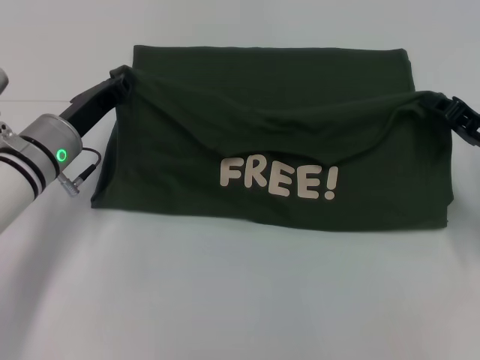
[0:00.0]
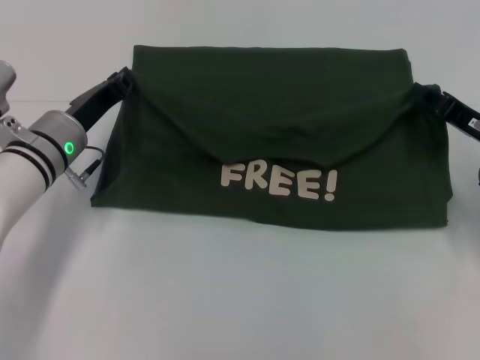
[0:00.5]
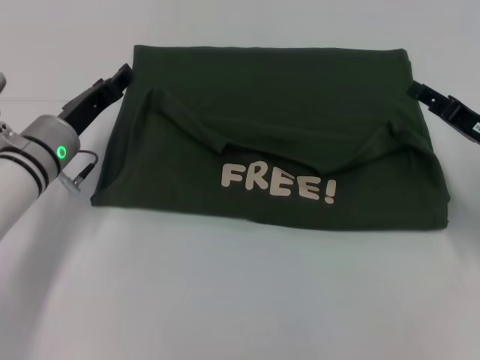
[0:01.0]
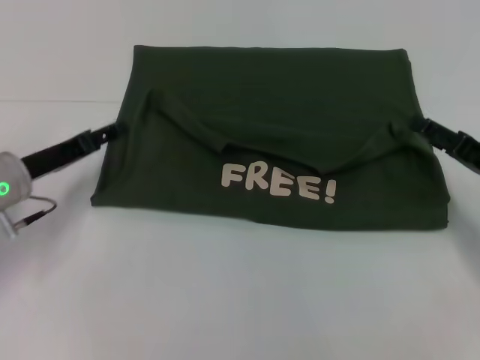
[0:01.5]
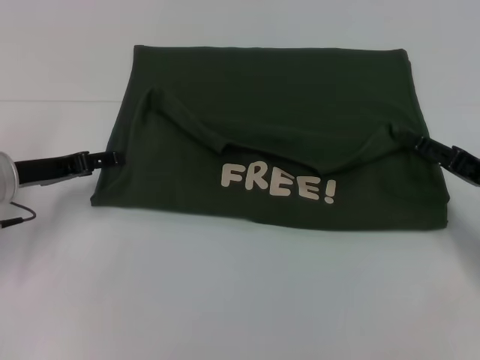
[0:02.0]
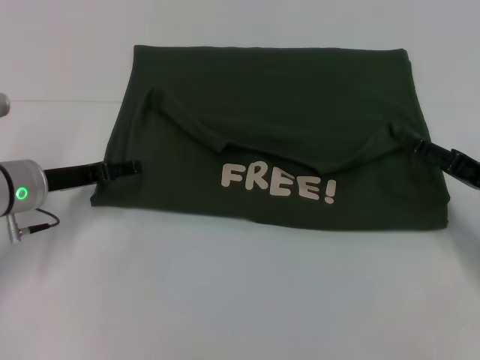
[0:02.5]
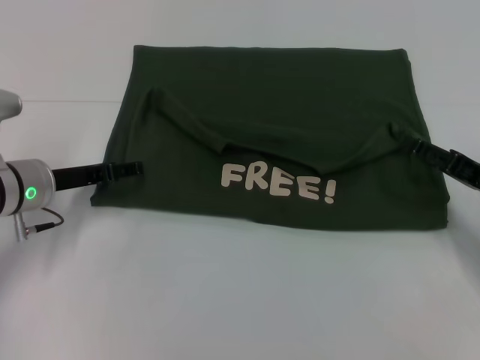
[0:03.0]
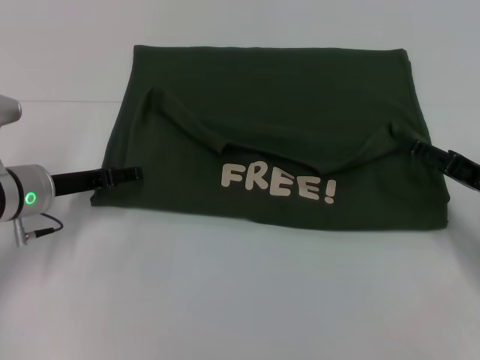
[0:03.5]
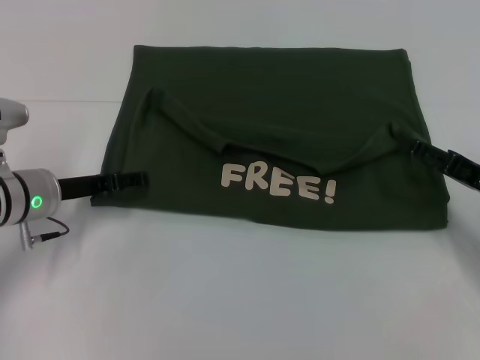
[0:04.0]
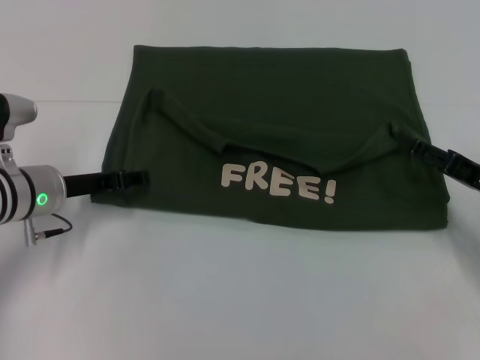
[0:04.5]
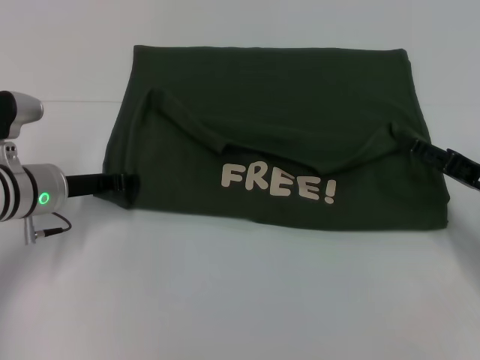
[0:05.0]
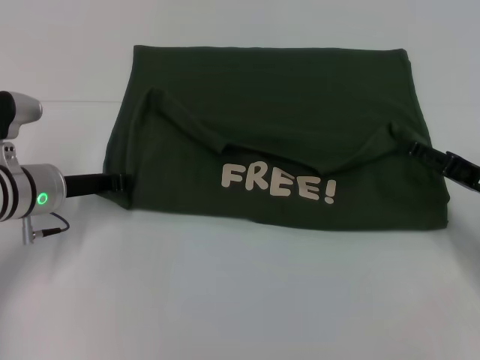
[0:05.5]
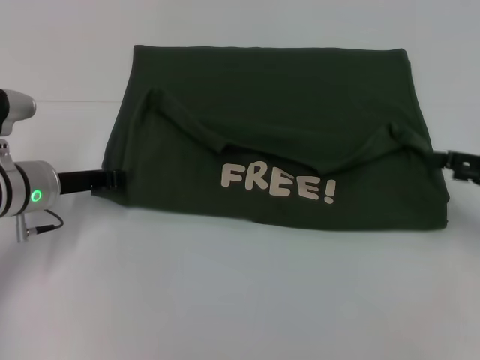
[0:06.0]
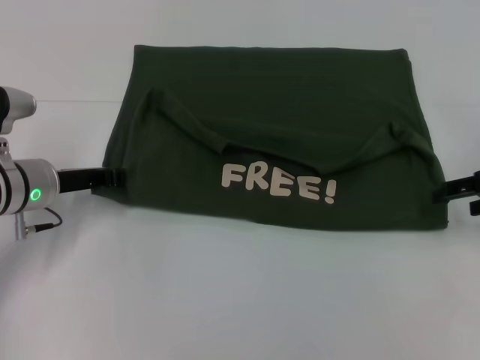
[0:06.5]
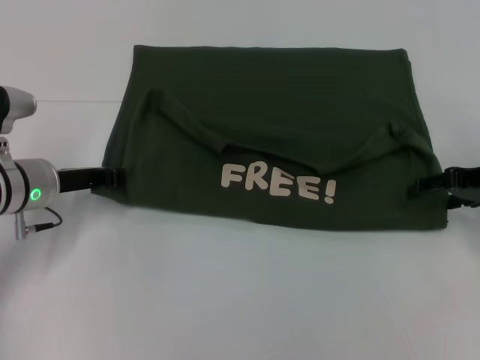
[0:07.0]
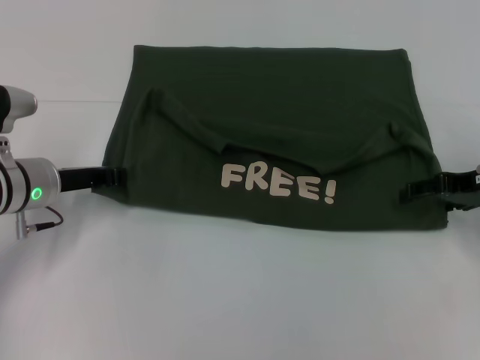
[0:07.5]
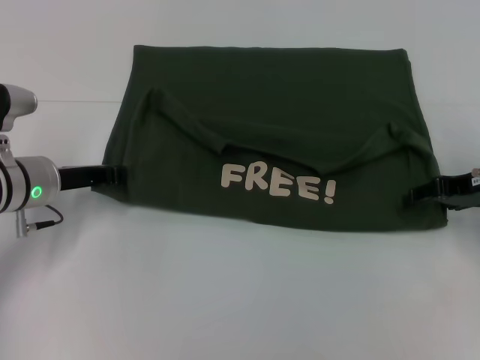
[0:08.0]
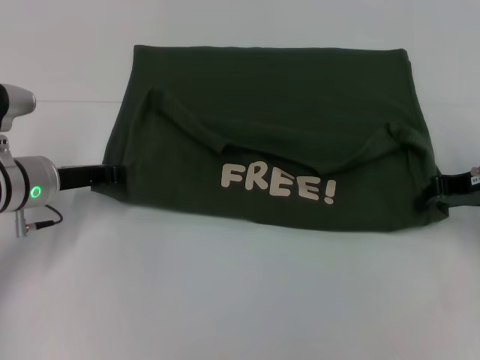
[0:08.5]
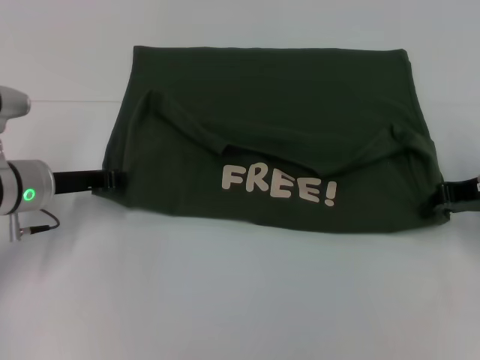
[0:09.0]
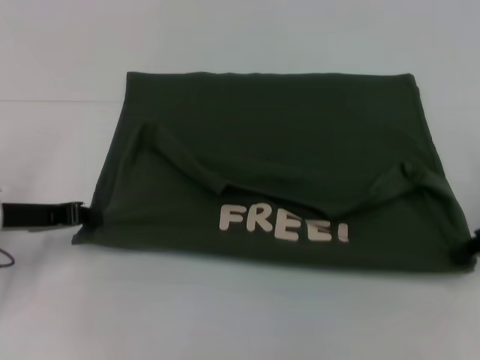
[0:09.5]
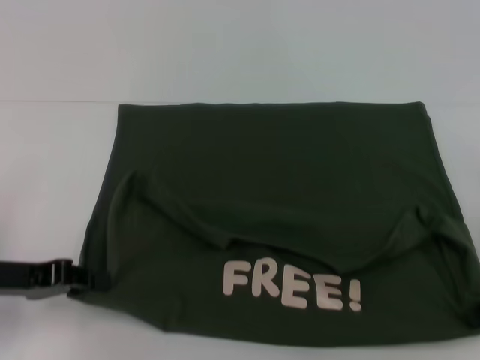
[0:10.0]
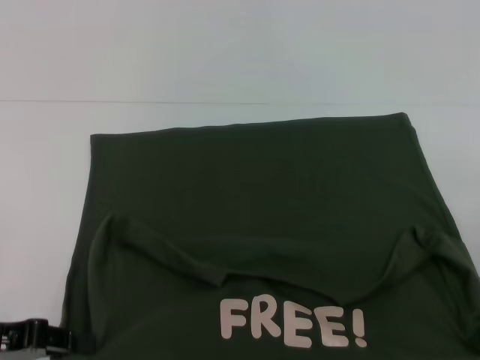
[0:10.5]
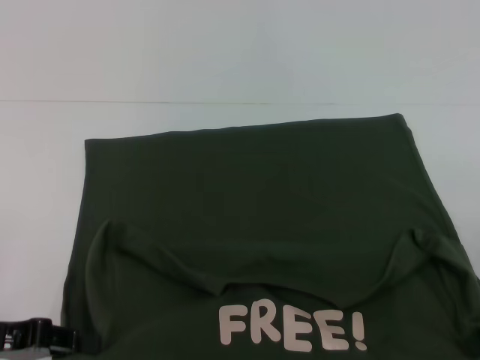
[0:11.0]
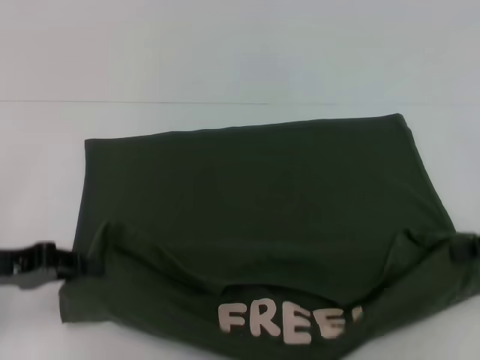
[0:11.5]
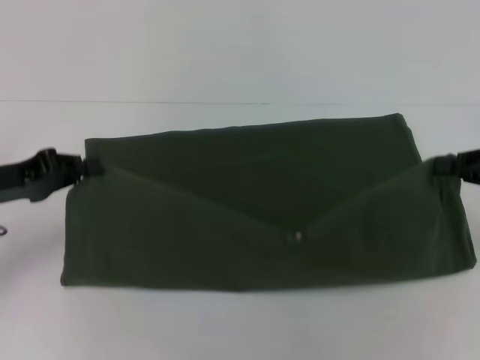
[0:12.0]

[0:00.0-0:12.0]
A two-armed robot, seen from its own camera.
Step, 0:01.0 to 0:10.5: Pull the clothes with your left hand.
Step, 0:01.0 to 0:10.5: Pull the clothes with your right hand.
0:00.0 to 0:02.0: The right gripper opens its fingers. The left gripper goes some 5 cm to the left, and opens up.
0:02.0 to 0:04.0: There are only small adjustments of the grippers.
0:04.0 to 0:06.0: The left gripper closes. The right gripper shifts by about 5 cm.
0:06.0 to 0:08.0: The right gripper shifts approximately 10 cm to the left and forward.
0:08.0 to 0:10.0: The left gripper moves backward and to the left, roughly 10 cm; the right gripper heads backward, covering about 5 cm, and closes its fingers.

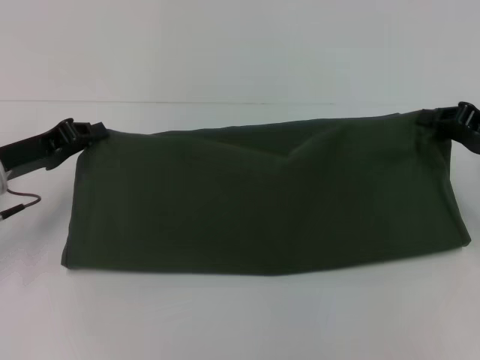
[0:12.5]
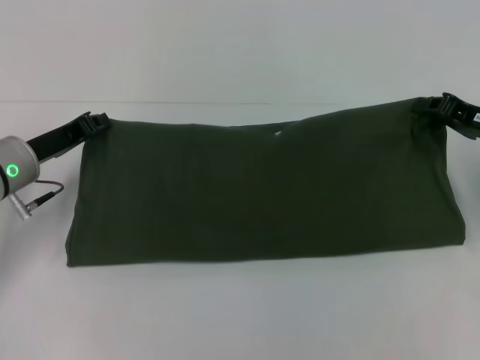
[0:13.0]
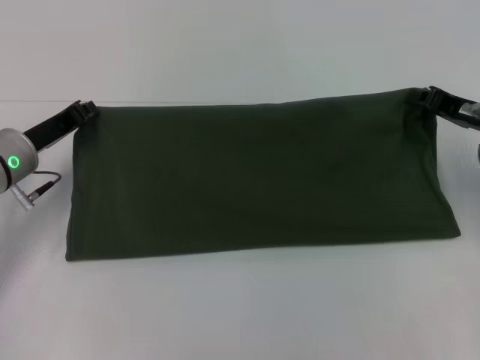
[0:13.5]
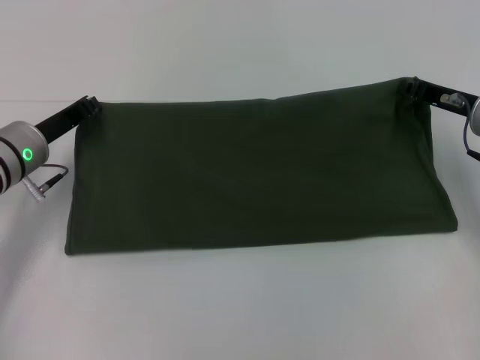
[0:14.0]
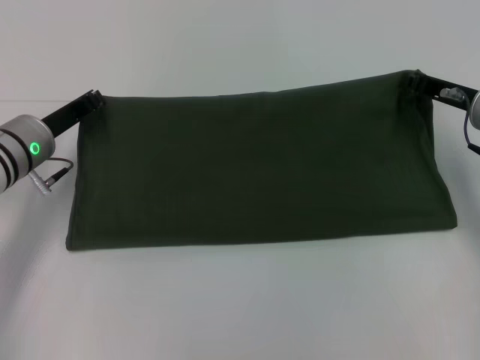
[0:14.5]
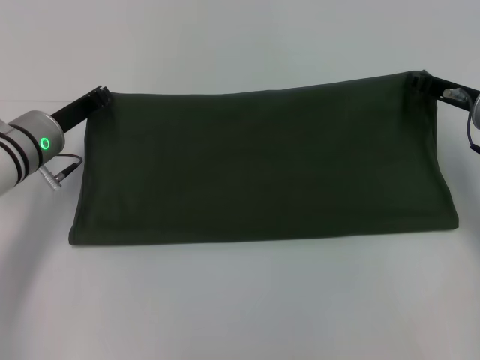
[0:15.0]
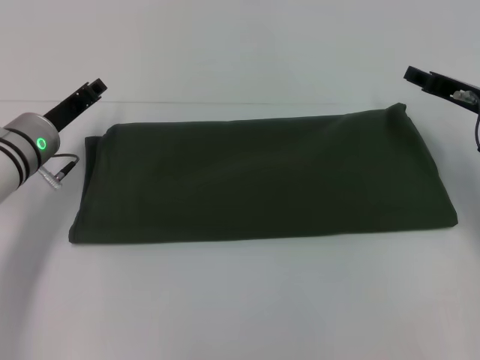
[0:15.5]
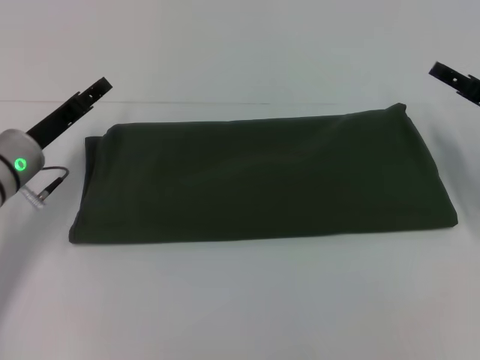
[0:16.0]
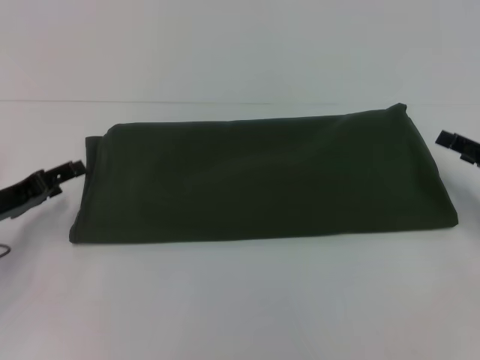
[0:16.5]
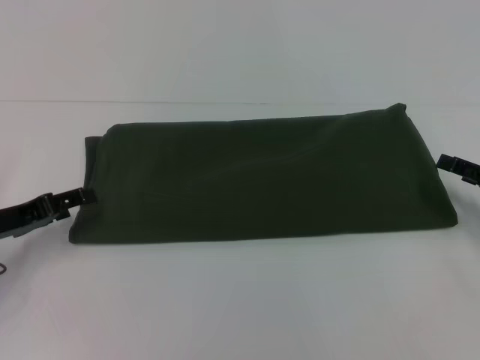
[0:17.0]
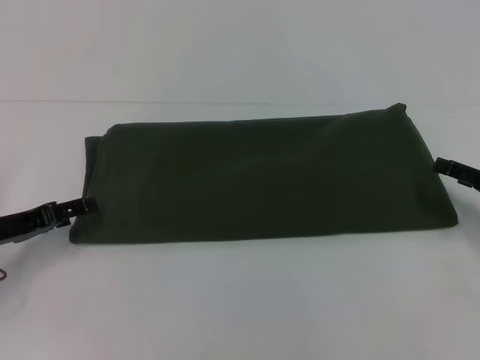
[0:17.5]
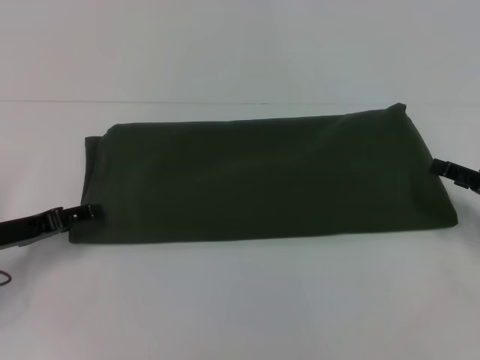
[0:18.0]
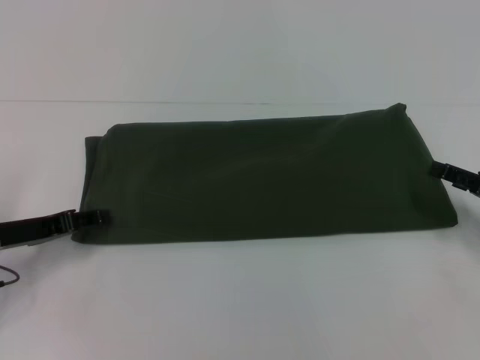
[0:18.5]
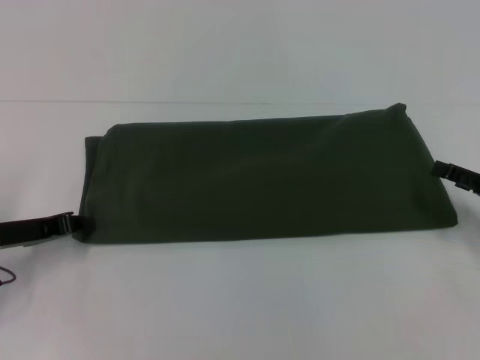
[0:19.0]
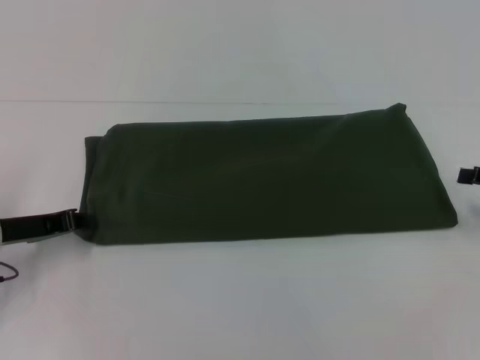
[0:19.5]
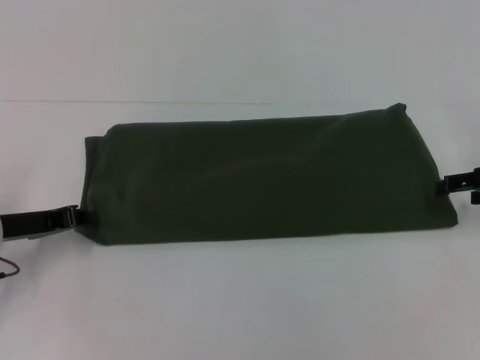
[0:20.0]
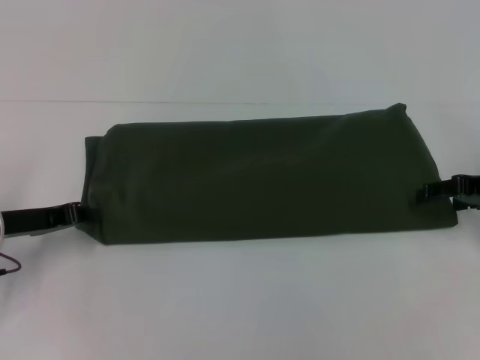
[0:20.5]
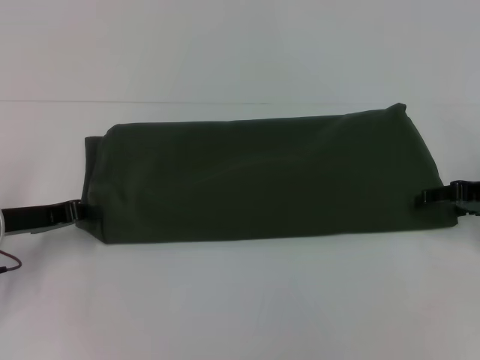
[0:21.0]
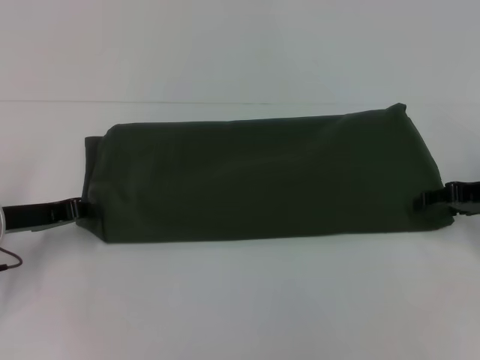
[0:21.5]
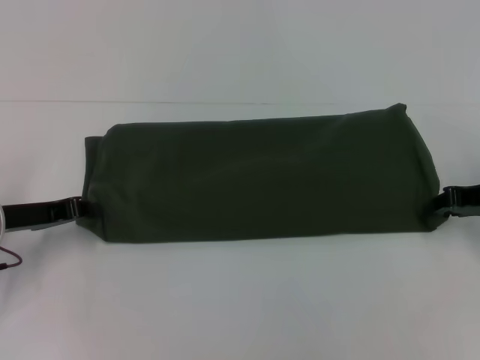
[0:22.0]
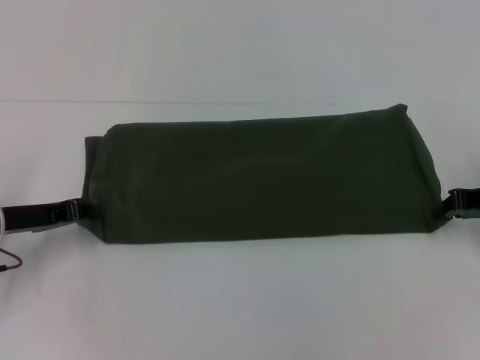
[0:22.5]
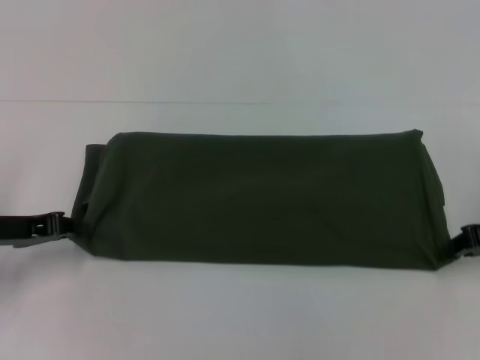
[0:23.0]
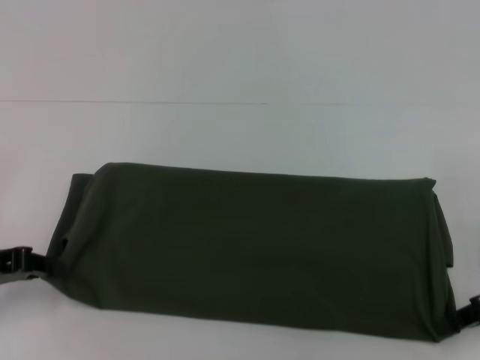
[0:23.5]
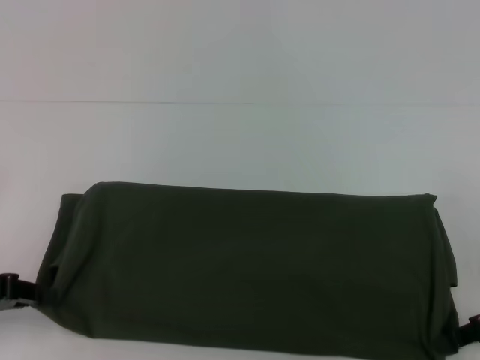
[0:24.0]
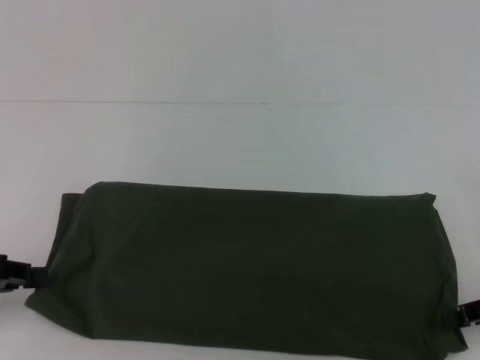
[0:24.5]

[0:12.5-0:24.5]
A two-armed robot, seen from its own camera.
Step, 0:12.5 to 0:15.0: Fold the clothes with your right hand.
0:12.5 to 0:14.5: The left gripper heads forward, covering some 5 cm. The right gripper heads forward and to the left, covering about 10 cm.
0:14.5 to 0:16.5: The left gripper heads backward and to the left, covering roughly 10 cm, and opens up. The right gripper heads backward and to the right, covering approximately 15 cm, and opens its fingers.
0:16.5 to 0:18.5: The grippers stay close to where they were, moving slightly.
0:18.5 to 0:20.5: The left gripper closes its fingers, while the right gripper shifts approximately 5 cm forward.
0:20.5 to 0:22.5: The right gripper closes its fingers.
0:22.5 to 0:24.5: The left gripper heads backward and to the left, covering roughly 10 cm. Meanwhile the right gripper is displaced backward by some 10 cm.

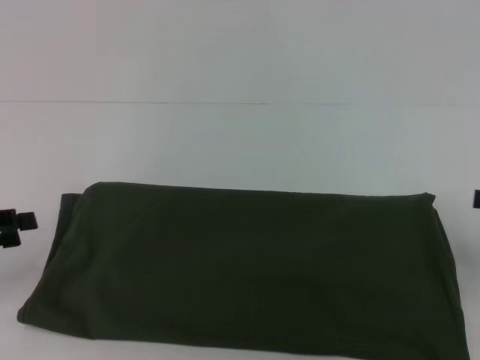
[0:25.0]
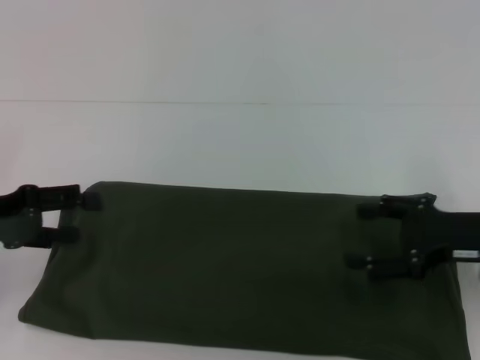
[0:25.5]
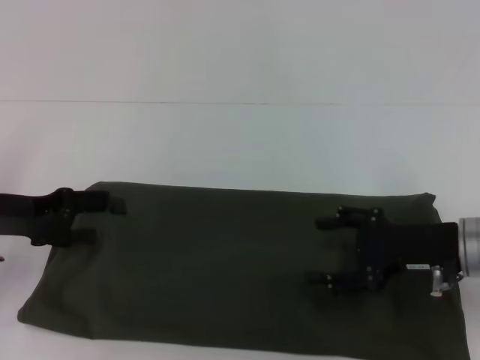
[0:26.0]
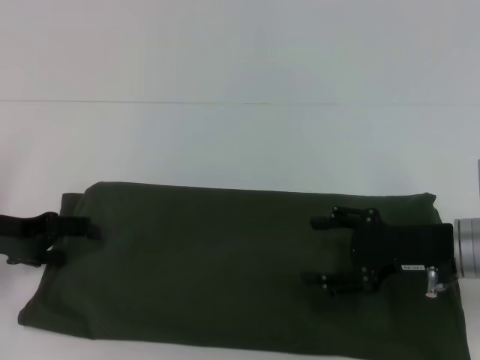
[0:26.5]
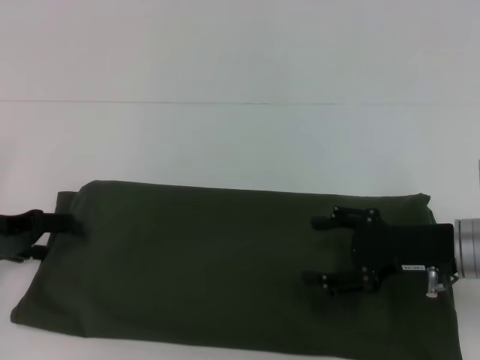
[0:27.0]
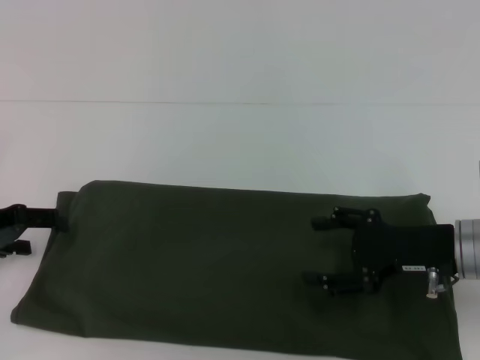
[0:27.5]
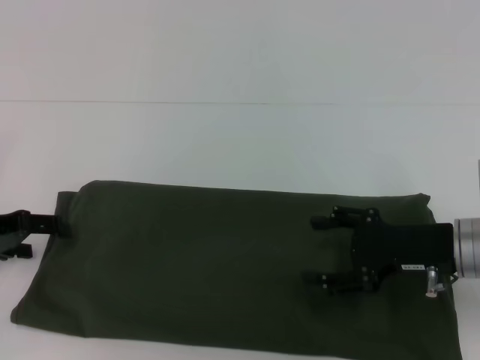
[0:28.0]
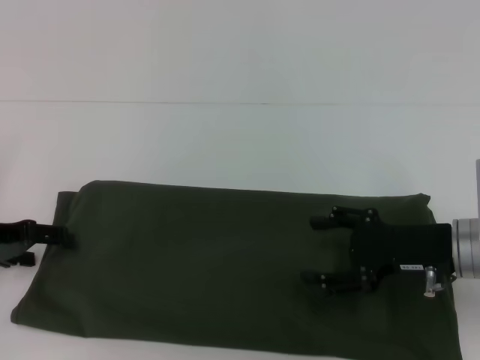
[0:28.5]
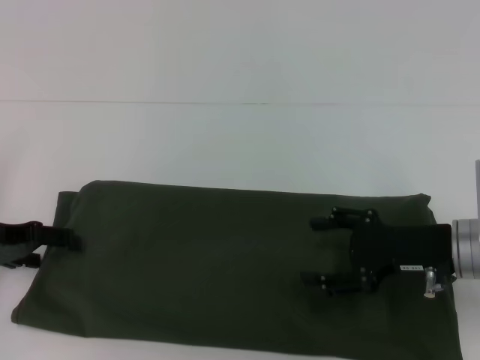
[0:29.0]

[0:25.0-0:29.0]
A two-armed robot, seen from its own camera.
0:25.0 to 0:27.0: The right gripper shifts approximately 15 cm to the left and downward, and opens. The left gripper goes about 5 cm forward, and opens its fingers.
0:27.0 to 0:29.0: The grippers stay close to where they were, moving slightly.
